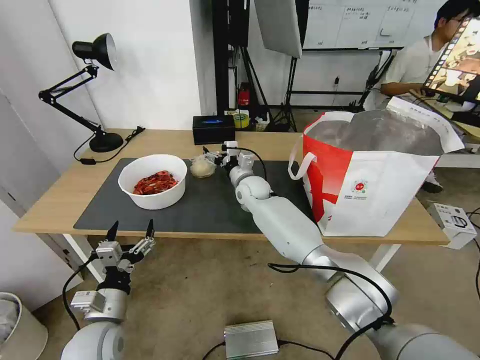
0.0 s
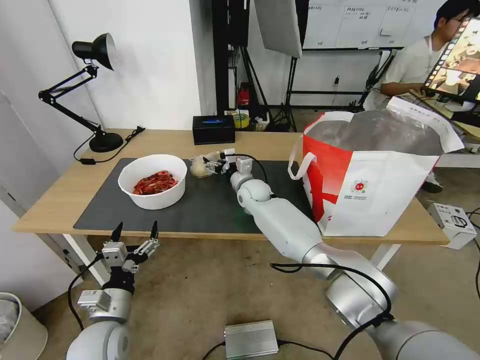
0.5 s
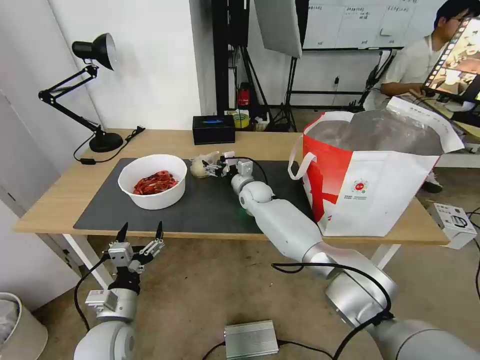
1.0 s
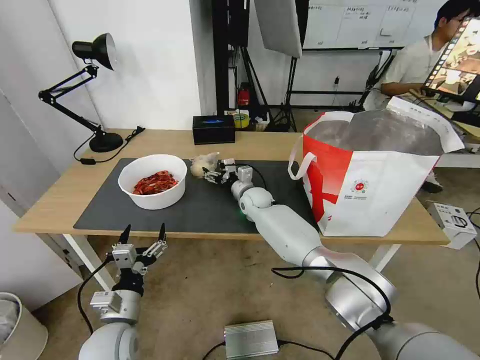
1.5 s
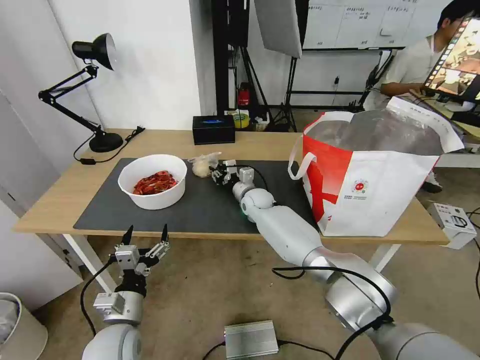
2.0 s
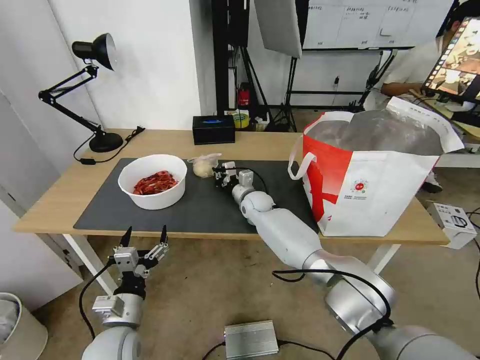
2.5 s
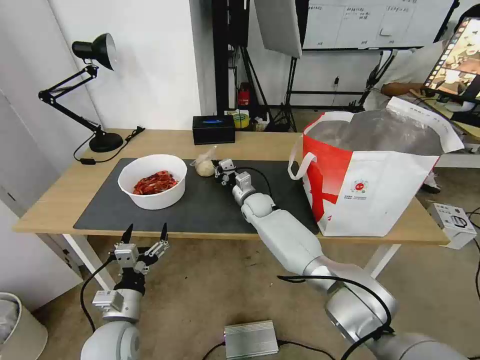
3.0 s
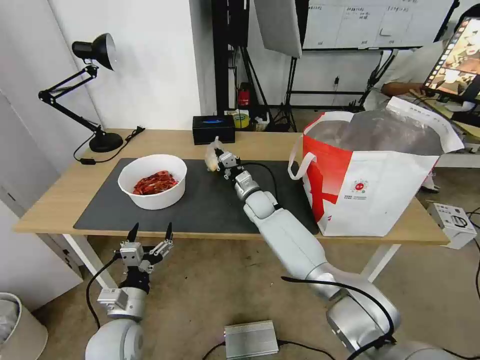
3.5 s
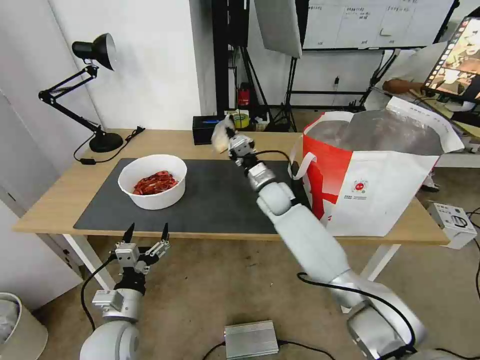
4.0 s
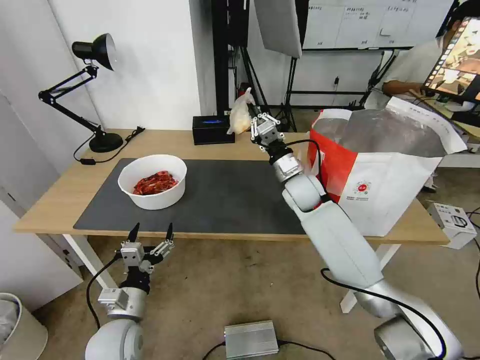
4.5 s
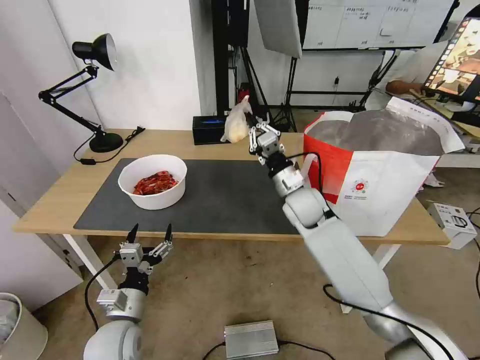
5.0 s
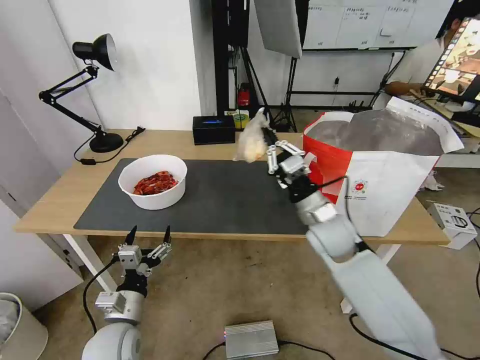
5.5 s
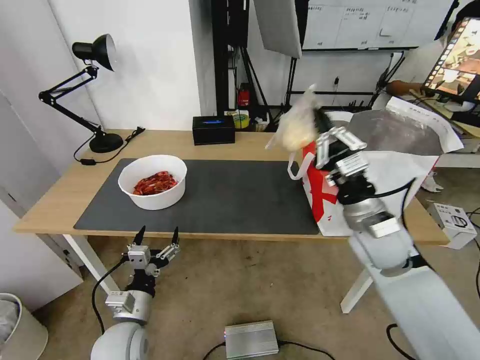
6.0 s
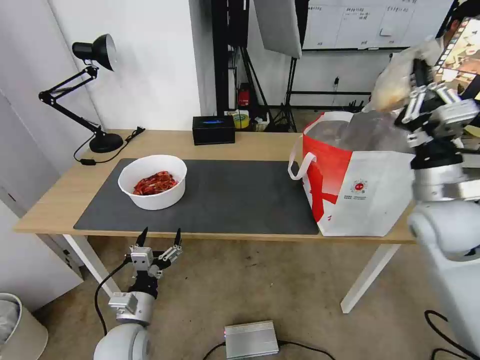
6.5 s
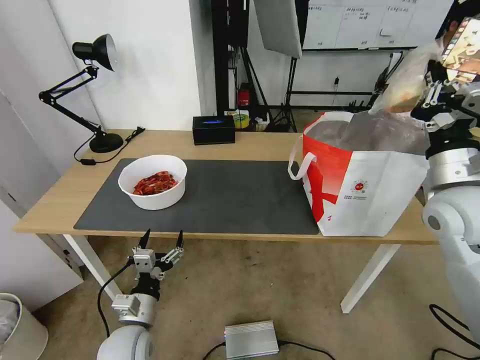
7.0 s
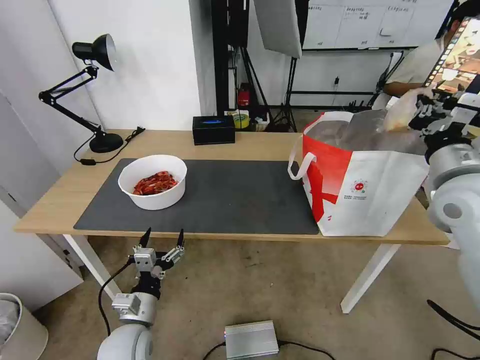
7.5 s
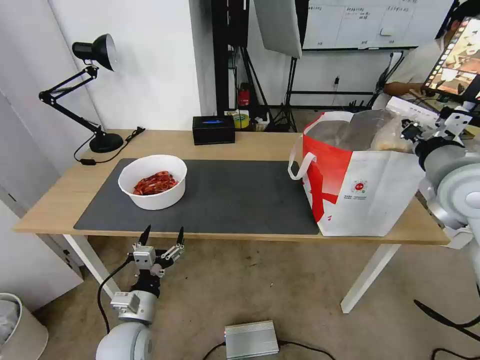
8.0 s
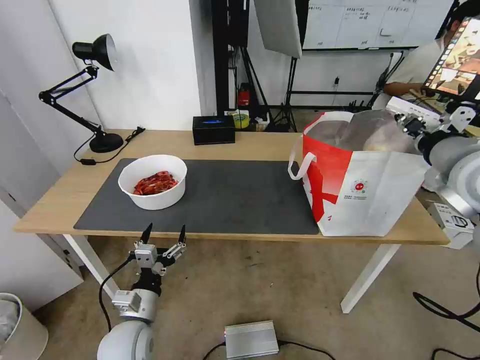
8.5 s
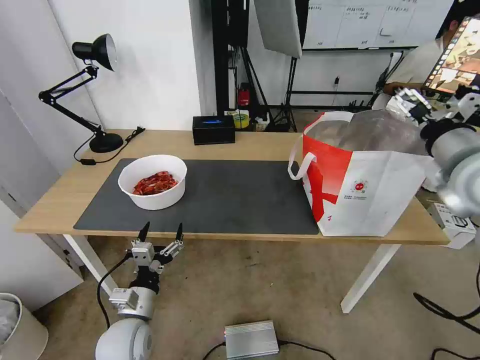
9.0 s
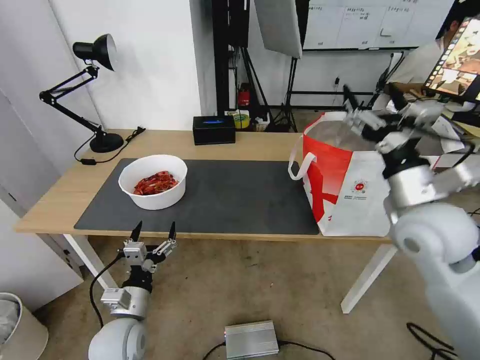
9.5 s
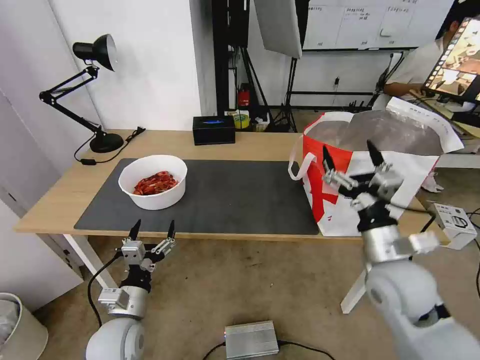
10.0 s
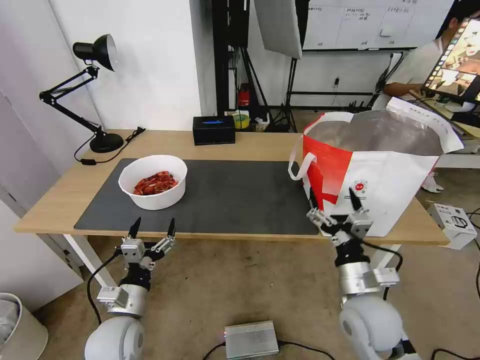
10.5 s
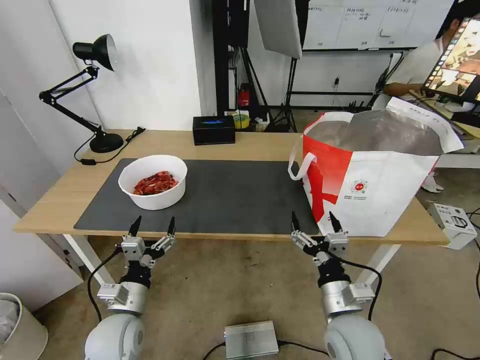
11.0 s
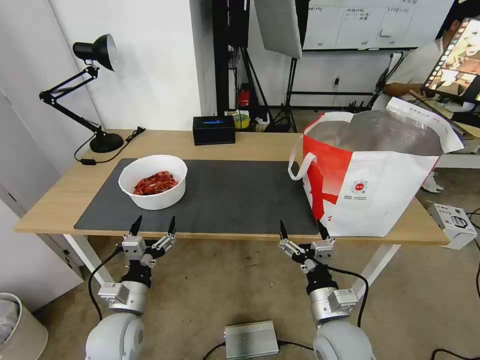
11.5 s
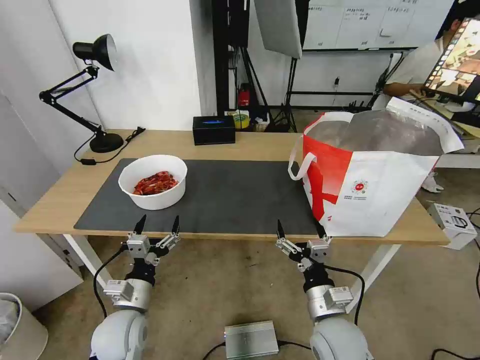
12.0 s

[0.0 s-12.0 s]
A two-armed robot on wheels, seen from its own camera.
Task of the whole recording: Pick up the trash from the table and place it into the takeout bag.
0.0 to 2.0 s: The right gripper goes approximately 5 cm downward, and closes up.
2.0 to 4.0 s: The right gripper is displaced upward by some 5 cm, and closes.
4.0 to 6.0 s: The right gripper moves backward, to the right and upward, some 25 cm.
6.0 to 8.0 s: The right gripper moves upward and to the right, about 15 cm.
8.0 to 10.0 s: The right gripper is displaced downward, to the left and backward by about 20 cm, and opens.
10.0 to 12.0 s: The right gripper shifts about 15 cm downward, to the left and backward.

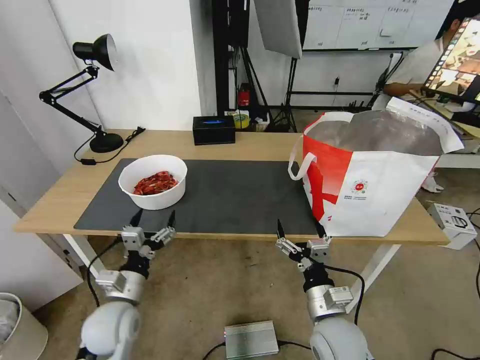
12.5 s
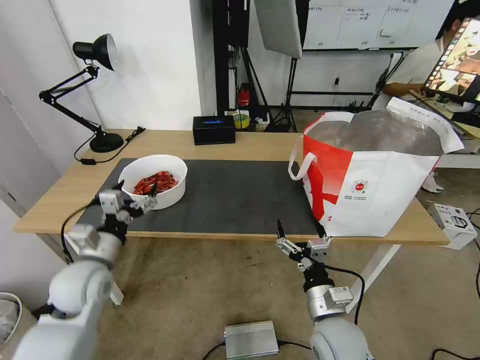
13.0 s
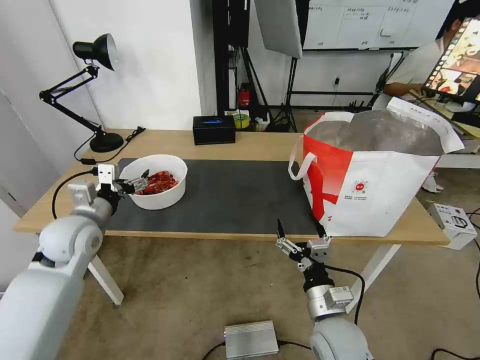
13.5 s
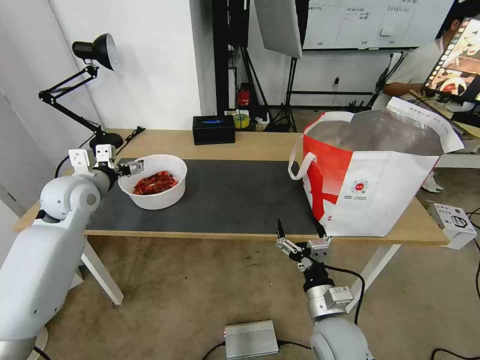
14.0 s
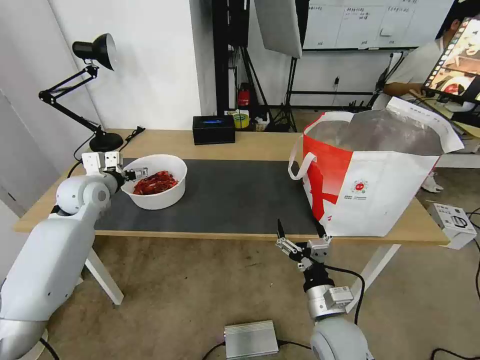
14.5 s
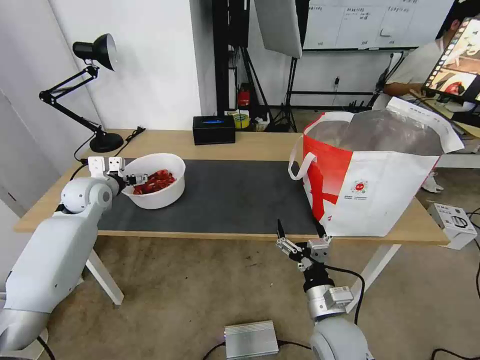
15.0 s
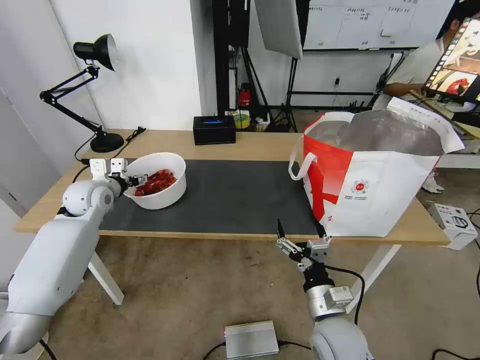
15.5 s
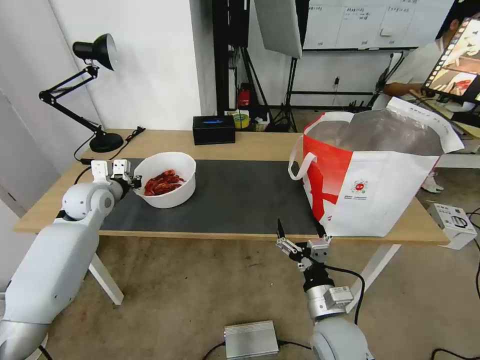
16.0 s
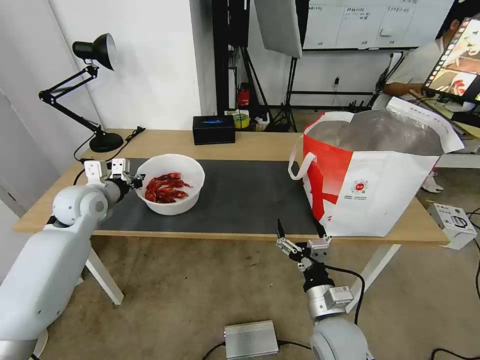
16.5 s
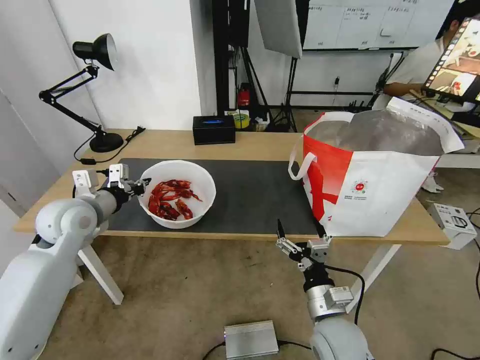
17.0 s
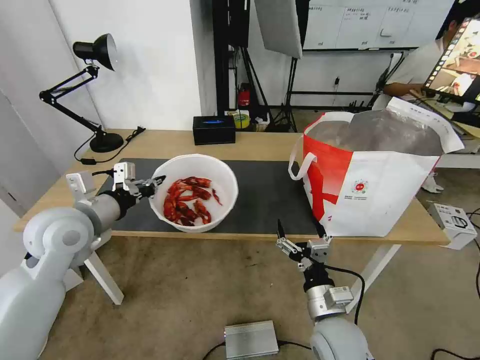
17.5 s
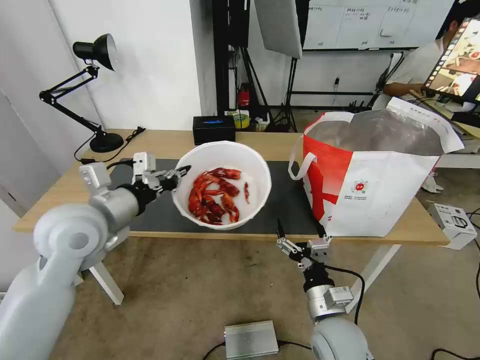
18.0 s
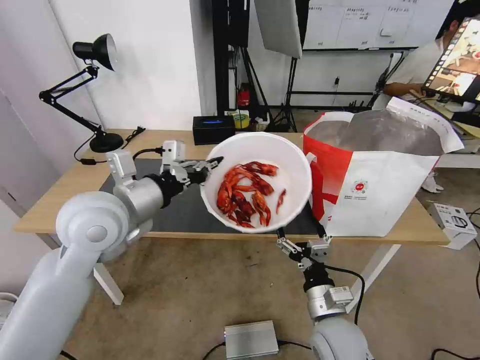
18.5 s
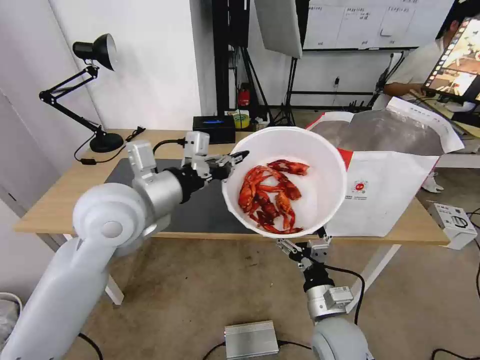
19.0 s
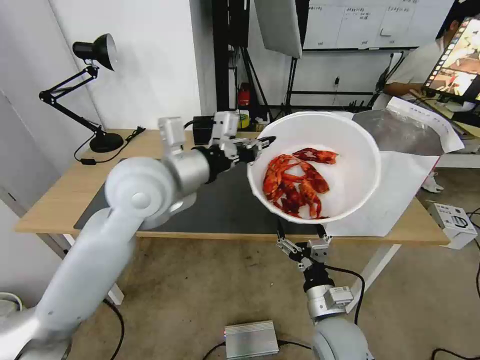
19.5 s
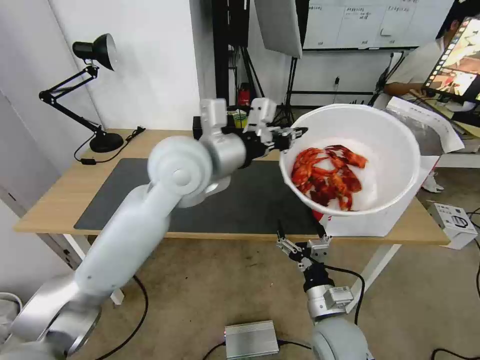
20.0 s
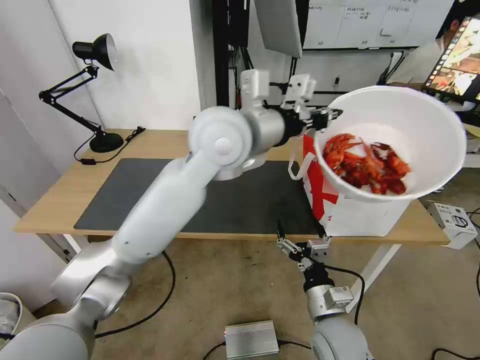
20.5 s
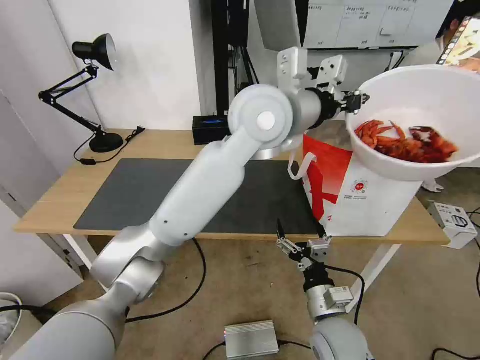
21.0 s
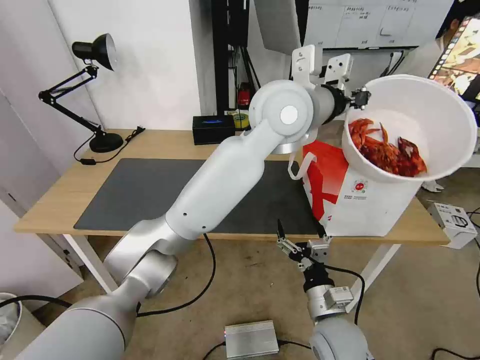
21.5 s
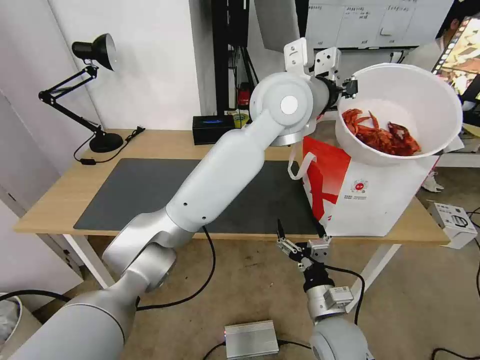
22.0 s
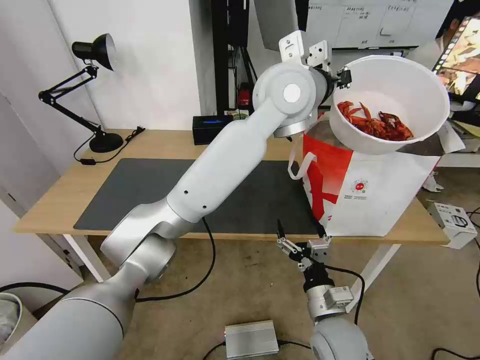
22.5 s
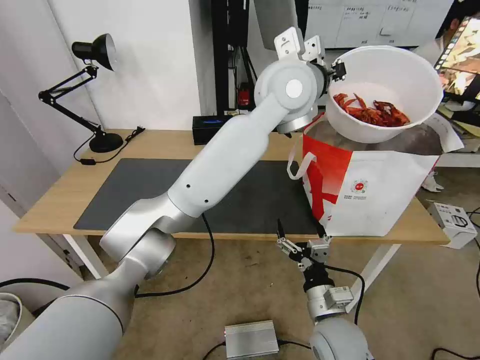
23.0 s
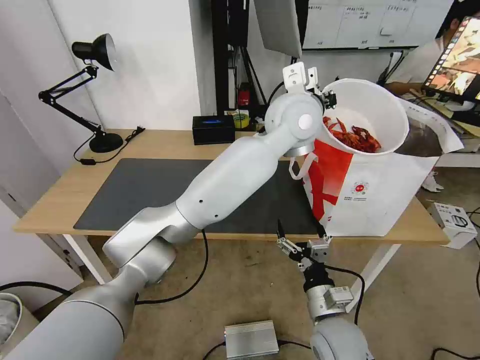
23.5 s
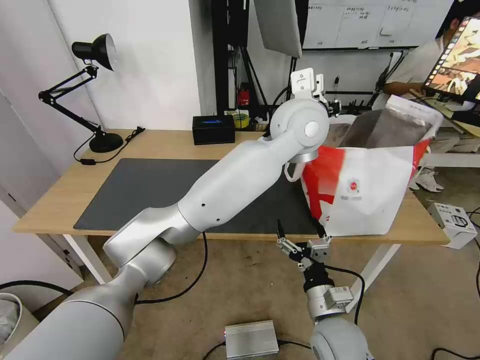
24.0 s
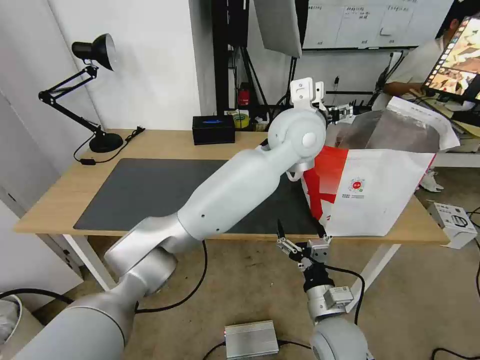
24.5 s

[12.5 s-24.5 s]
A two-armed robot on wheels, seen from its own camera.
Task of the whole recording: Pick up the trash from the table and place it into the takeout bag.
12.5 to 14.5 s: The left gripper travels forward, upward and to the left by some 30 cm.
14.5 to 16.5 s: The left gripper closes up.
16.5 to 18.5 s: The left gripper shifts some 20 cm to the right, backward and upward.
18.5 to 20.5 s: The left gripper moves to the right, upward and forward, roughly 25 cm.
20.5 to 22.5 s: The left gripper shifts roughly 10 cm to the right and forward.
22.5 to 24.5 s: The left gripper is displaced downward by about 5 cm, and opens its fingers.

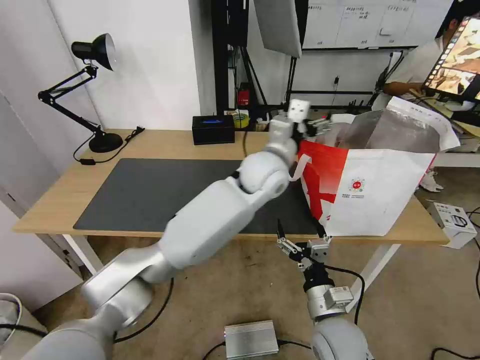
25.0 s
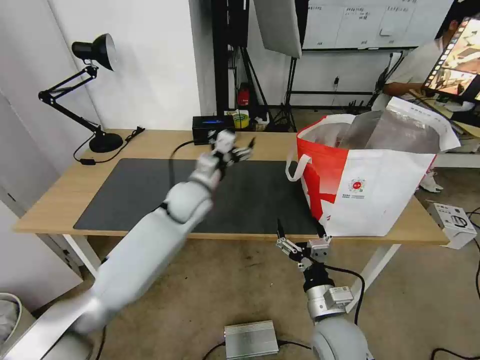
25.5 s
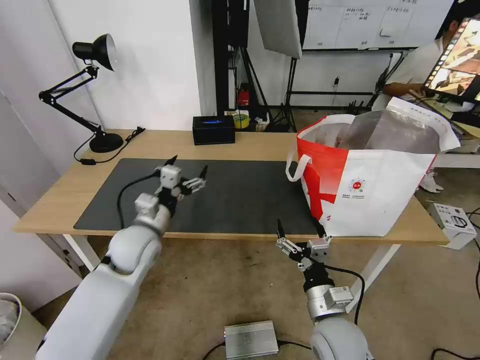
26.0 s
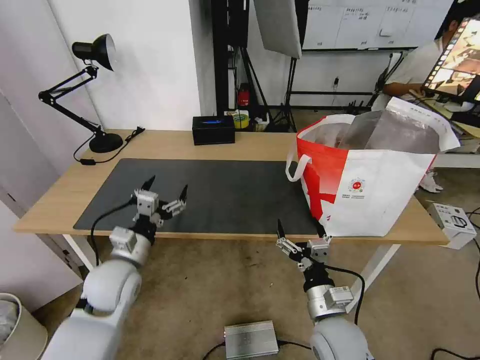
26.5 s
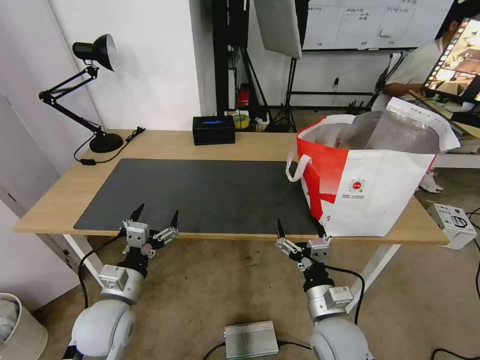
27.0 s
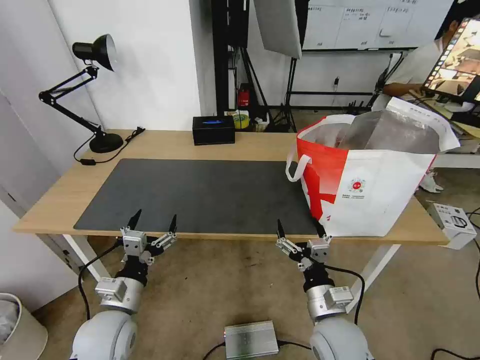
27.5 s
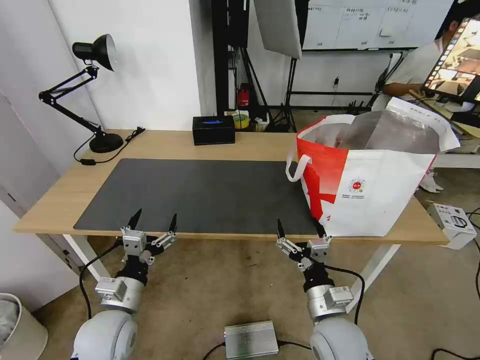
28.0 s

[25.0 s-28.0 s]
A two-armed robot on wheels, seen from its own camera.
Task of the whole recording: Pick up the trash from the table and place it into the takeout bag.
25.0 to 26.5 s: The left gripper shifts roughly 35 cm to the left, backward and downward.
26.5 to 28.0 s: The left gripper shifts approximately 10 cm backward.
